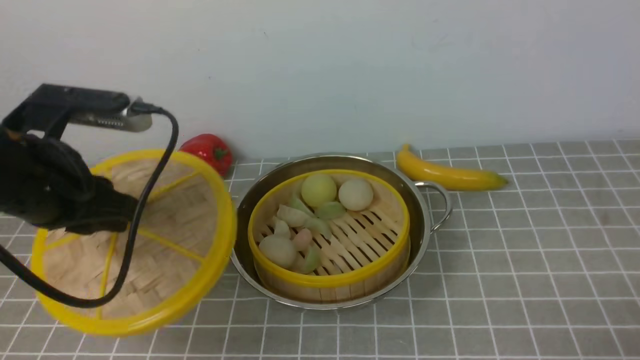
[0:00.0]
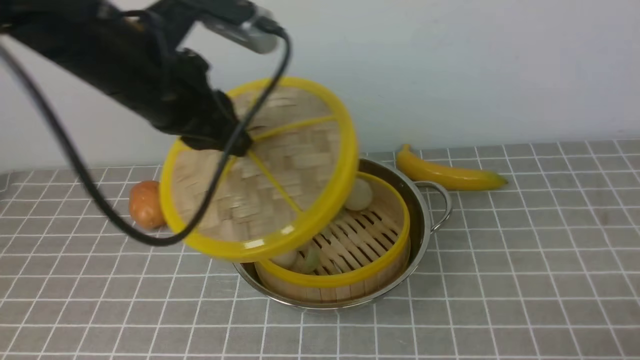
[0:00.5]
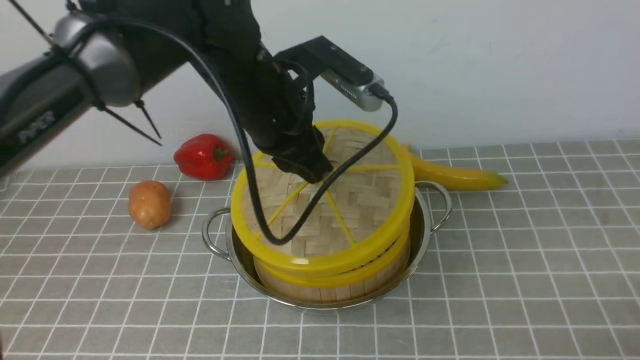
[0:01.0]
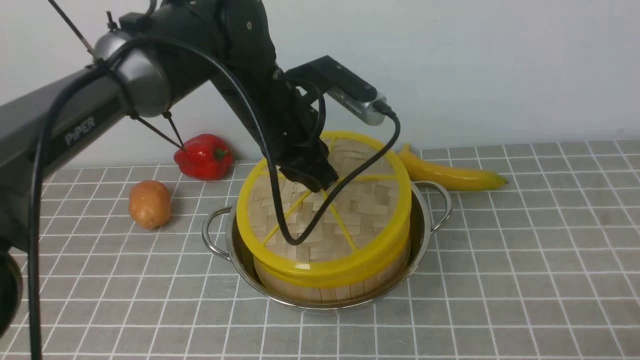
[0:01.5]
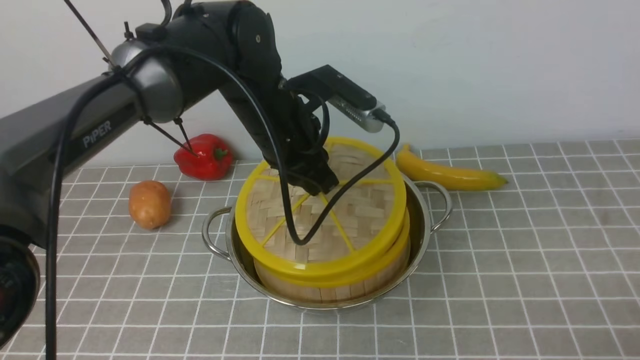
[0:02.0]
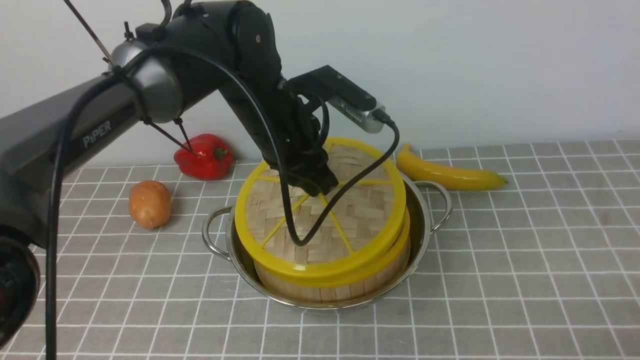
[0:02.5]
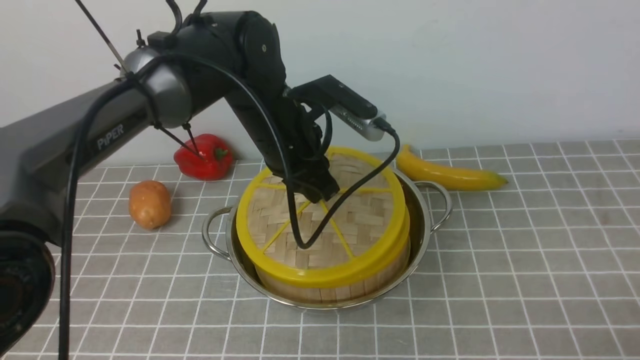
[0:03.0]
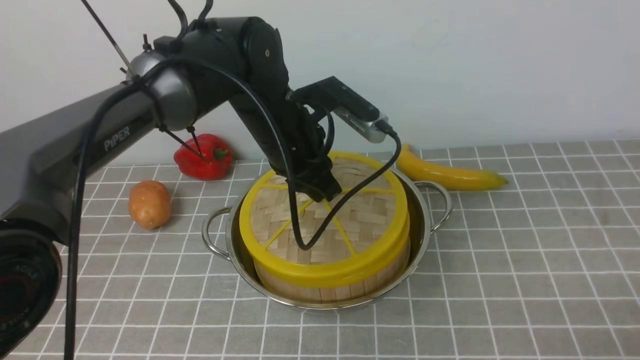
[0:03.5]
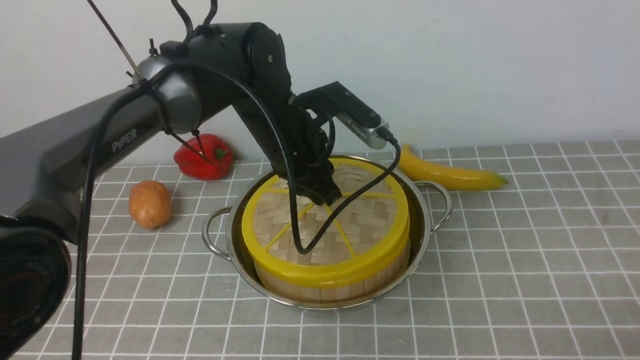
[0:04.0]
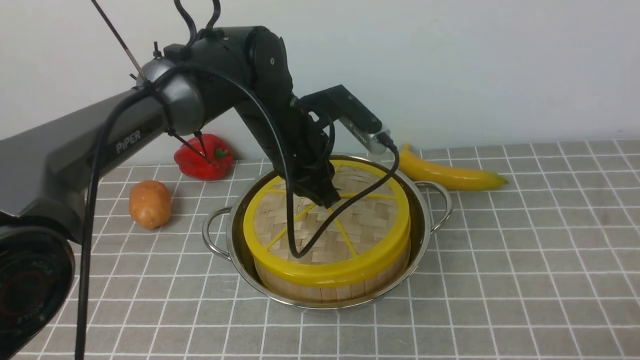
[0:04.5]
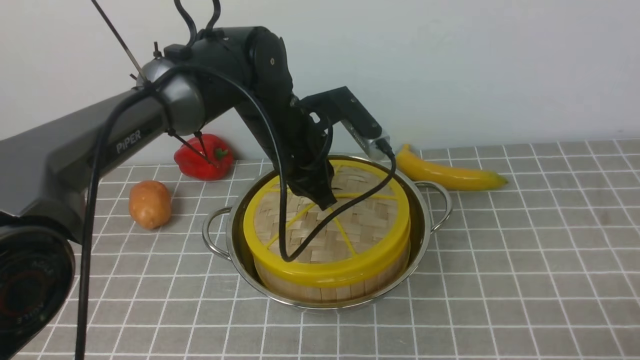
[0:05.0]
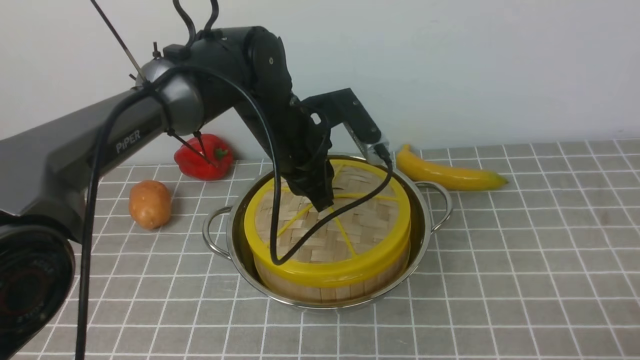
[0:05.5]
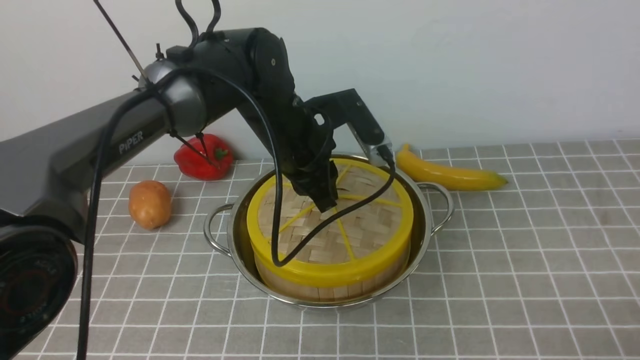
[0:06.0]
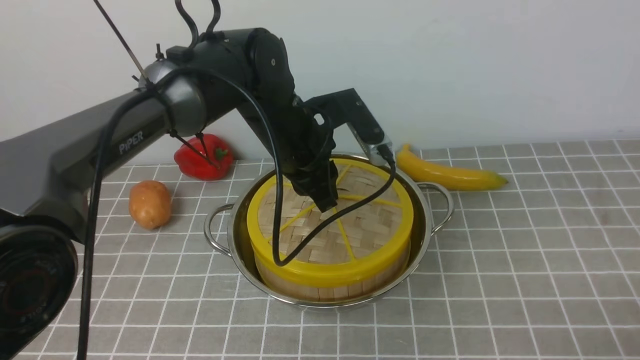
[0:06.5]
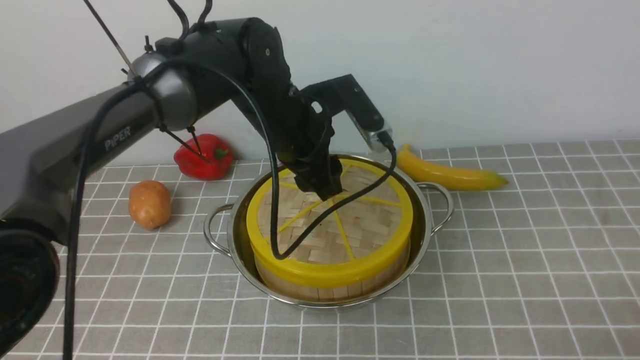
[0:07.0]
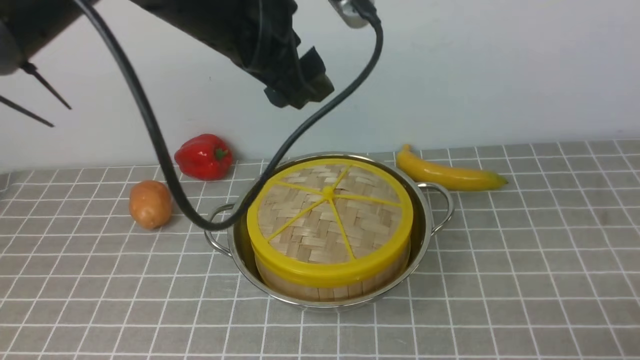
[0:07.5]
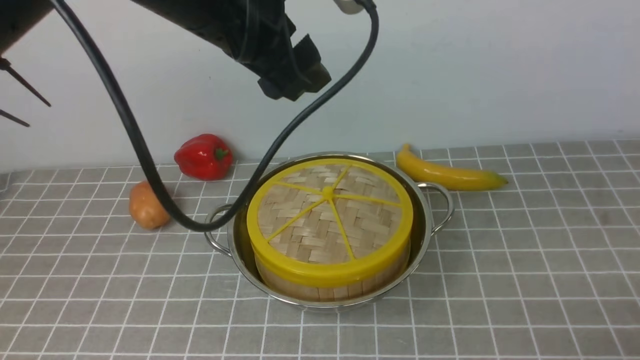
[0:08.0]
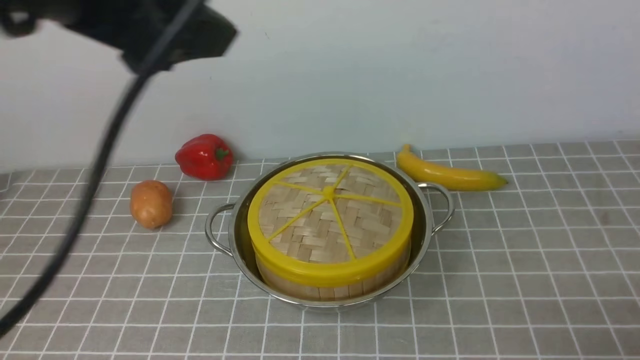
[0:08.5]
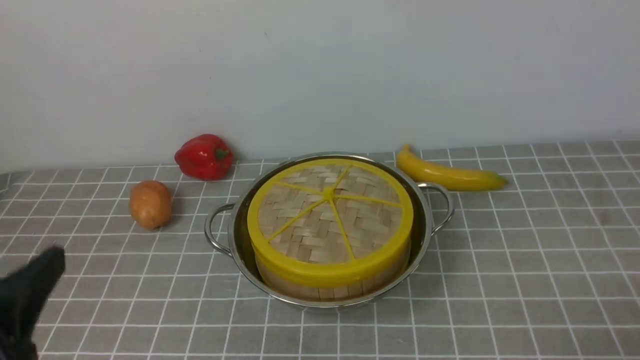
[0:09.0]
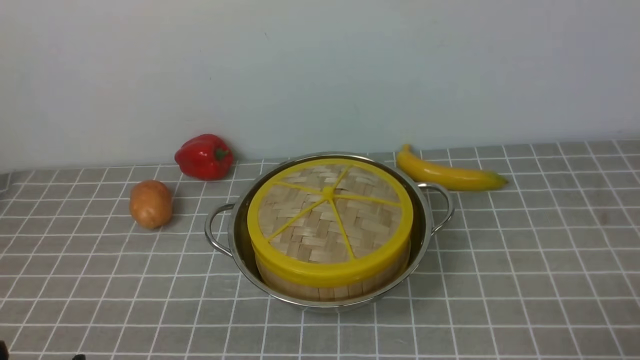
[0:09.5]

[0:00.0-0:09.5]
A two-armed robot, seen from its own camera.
Task of the whole recording: place the steamer in the pot on the grey tablecloth, and put the lid on the steamer.
Step, 0:00.0 to 0:07.0: use the left arm to place the steamer lid on the steamer.
0:00.0 to 0:02.0: The left gripper shifts some 20 cm to the right and forward.
0:02.0 to 0:05.5: There are only small adjustments of the grippers.
0:05.5 to 0:07.5: The left gripper is displaced upward by roughly 15 cm, and opens.
0:07.5 to 0:09.5: The left gripper goes about 40 cm backward, downward and to the left.

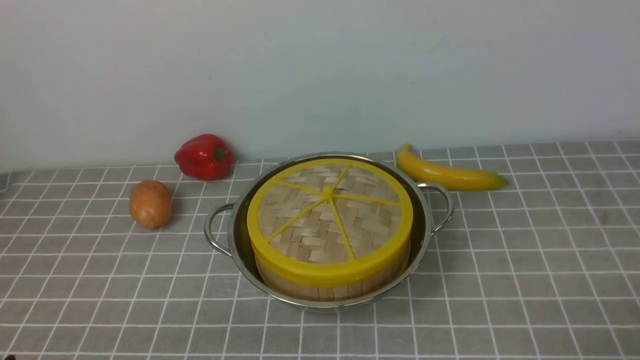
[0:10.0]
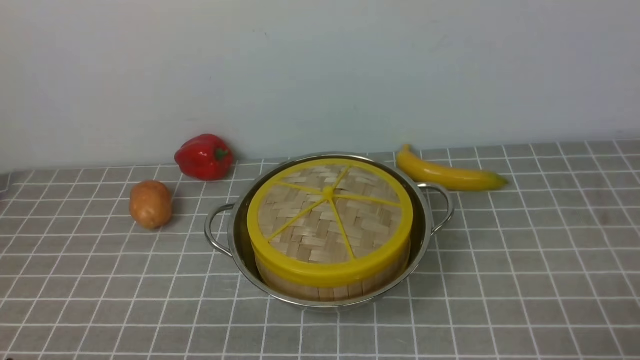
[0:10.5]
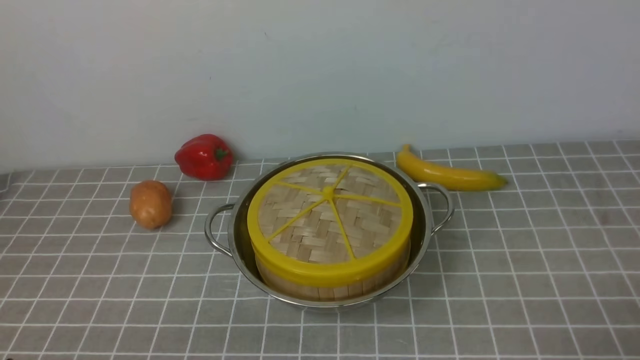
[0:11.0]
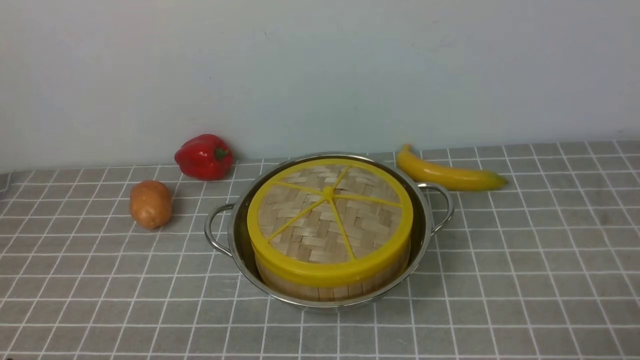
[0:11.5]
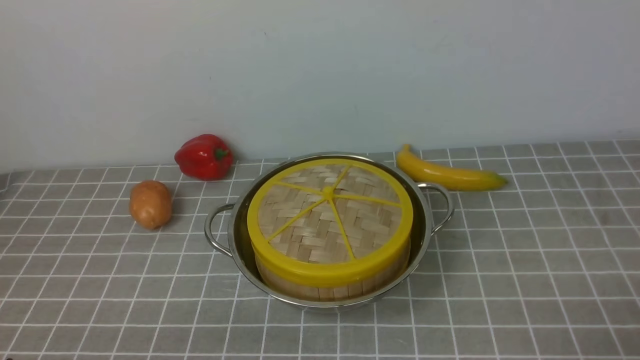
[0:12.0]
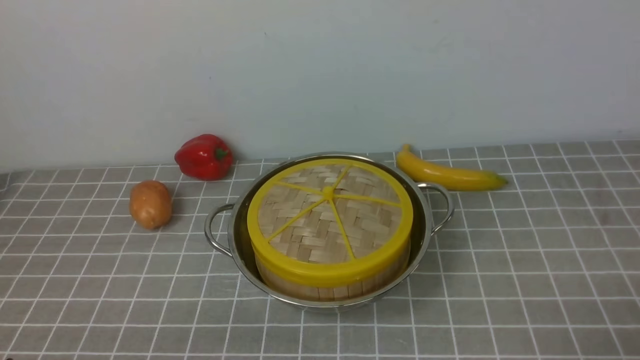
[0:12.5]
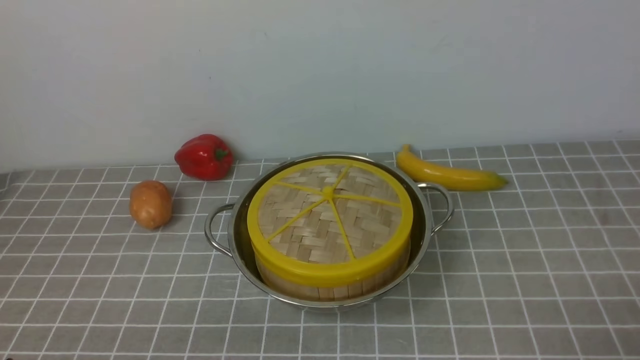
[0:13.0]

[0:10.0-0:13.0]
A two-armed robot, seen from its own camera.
Task of the whole recording: place the steamer in the pot on the grey tablecloth, and put the lid on the steamer.
0:11.5 to 0:13.0: Both grippers stay put.
